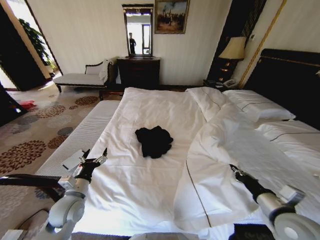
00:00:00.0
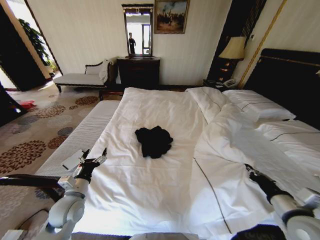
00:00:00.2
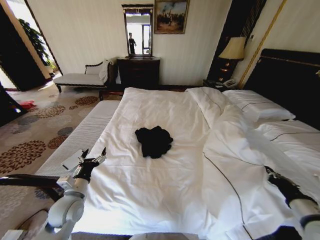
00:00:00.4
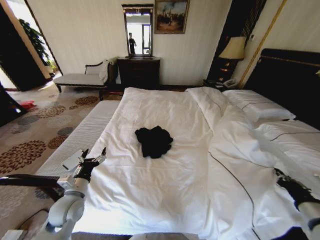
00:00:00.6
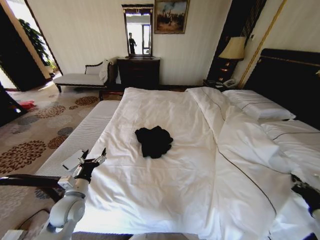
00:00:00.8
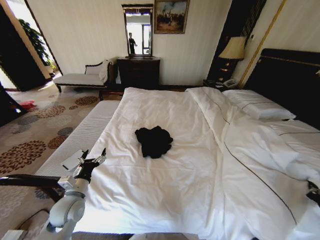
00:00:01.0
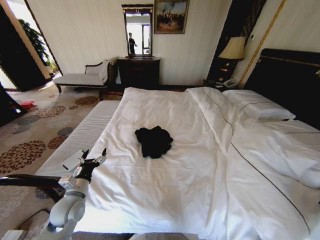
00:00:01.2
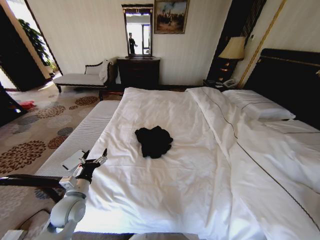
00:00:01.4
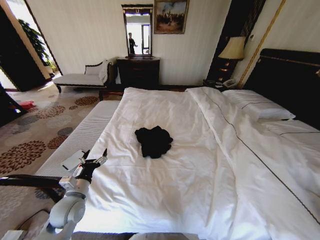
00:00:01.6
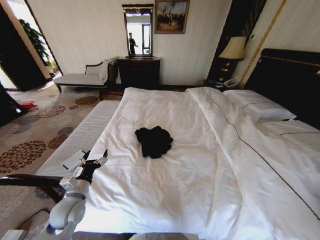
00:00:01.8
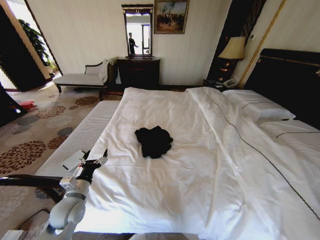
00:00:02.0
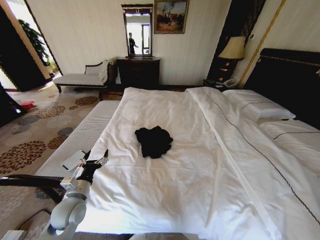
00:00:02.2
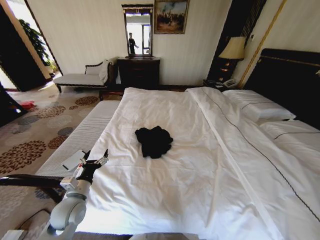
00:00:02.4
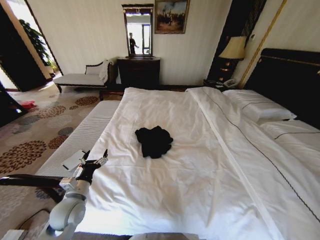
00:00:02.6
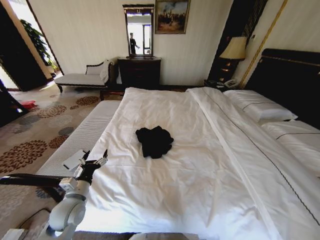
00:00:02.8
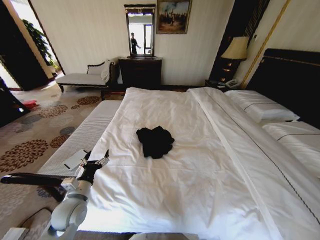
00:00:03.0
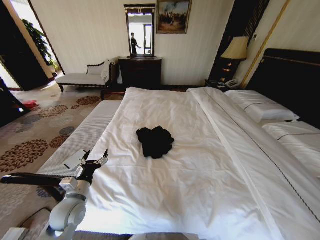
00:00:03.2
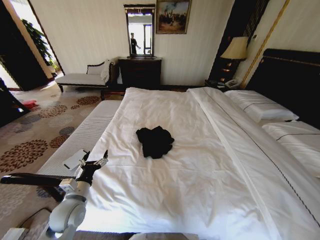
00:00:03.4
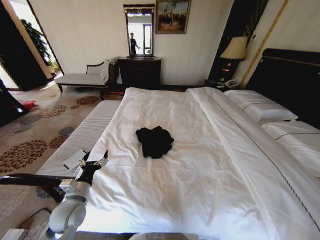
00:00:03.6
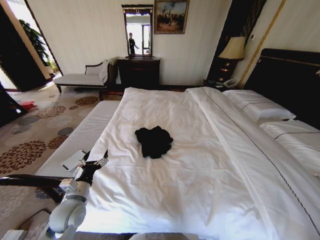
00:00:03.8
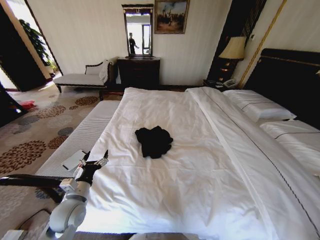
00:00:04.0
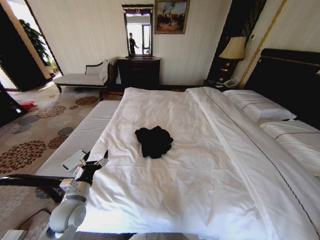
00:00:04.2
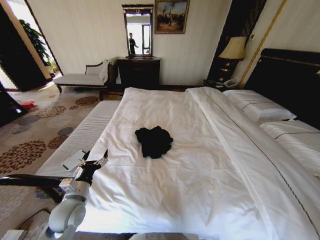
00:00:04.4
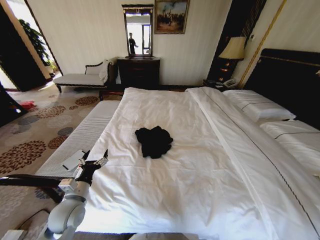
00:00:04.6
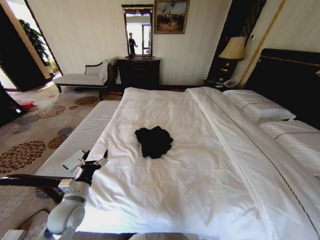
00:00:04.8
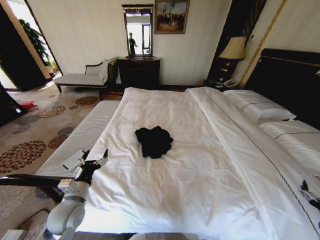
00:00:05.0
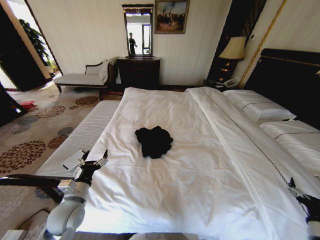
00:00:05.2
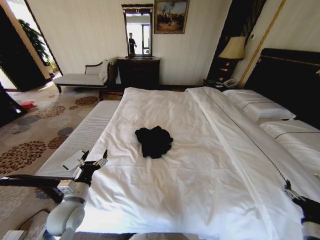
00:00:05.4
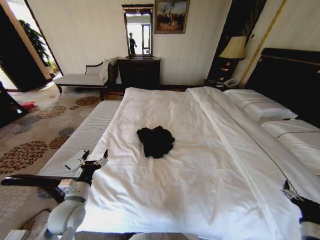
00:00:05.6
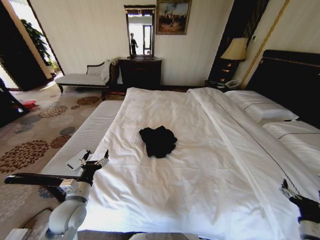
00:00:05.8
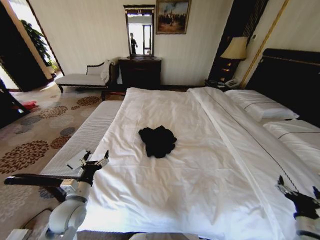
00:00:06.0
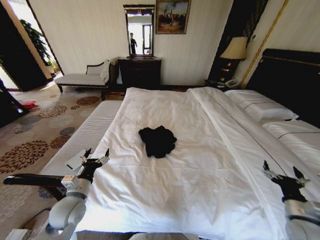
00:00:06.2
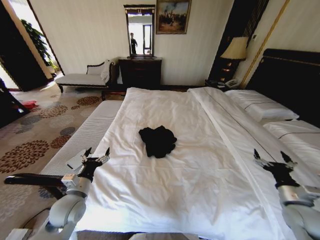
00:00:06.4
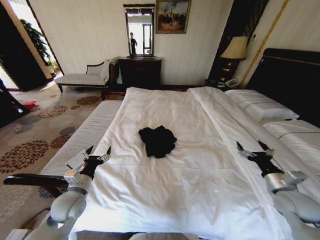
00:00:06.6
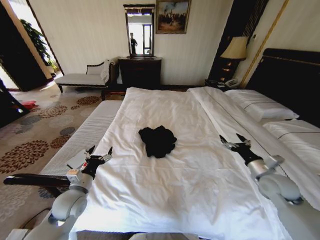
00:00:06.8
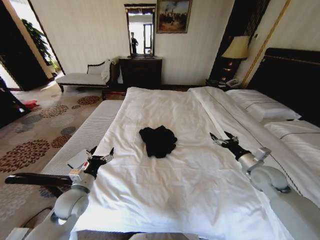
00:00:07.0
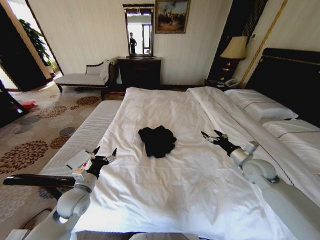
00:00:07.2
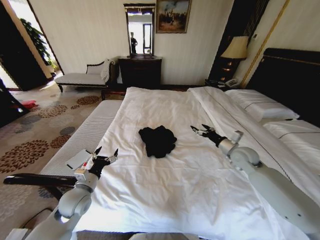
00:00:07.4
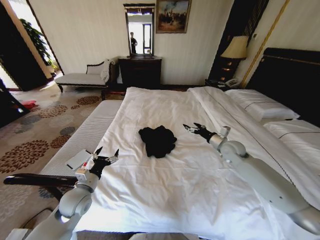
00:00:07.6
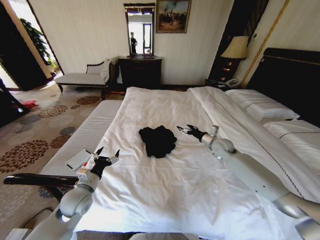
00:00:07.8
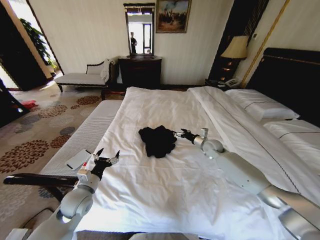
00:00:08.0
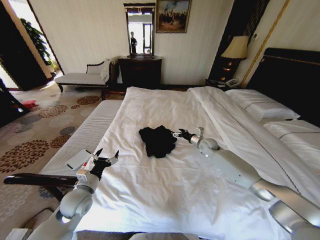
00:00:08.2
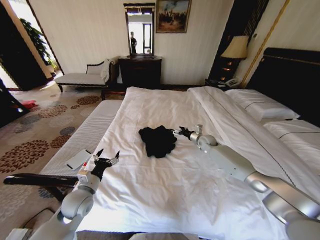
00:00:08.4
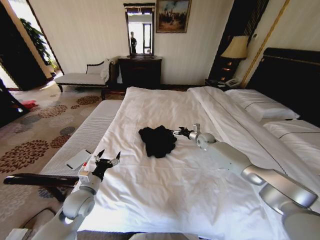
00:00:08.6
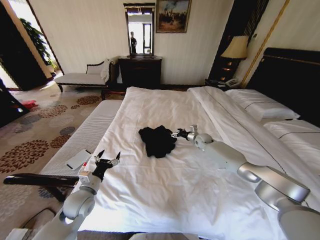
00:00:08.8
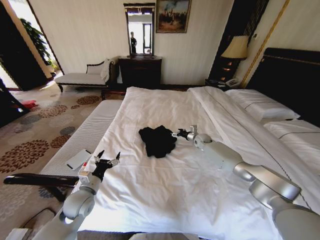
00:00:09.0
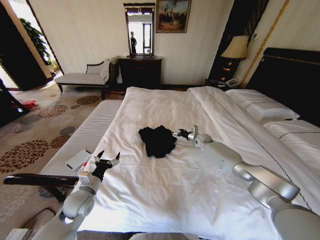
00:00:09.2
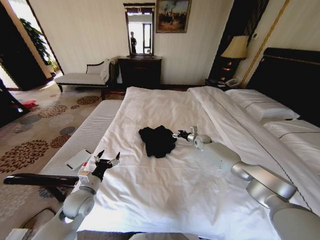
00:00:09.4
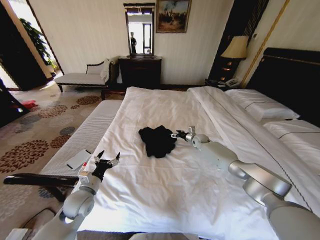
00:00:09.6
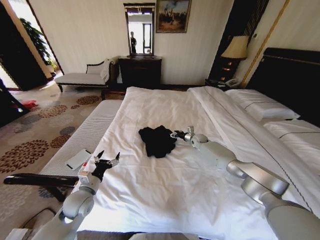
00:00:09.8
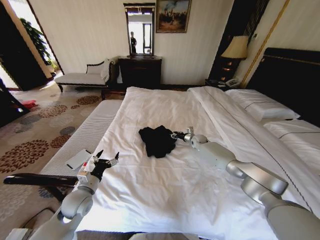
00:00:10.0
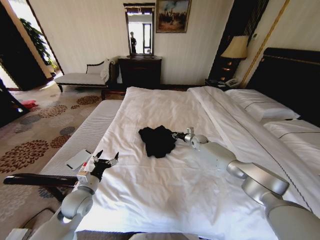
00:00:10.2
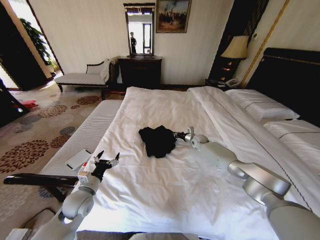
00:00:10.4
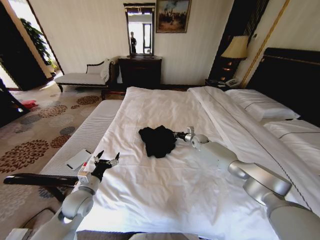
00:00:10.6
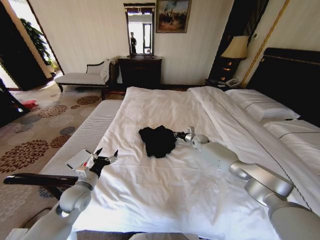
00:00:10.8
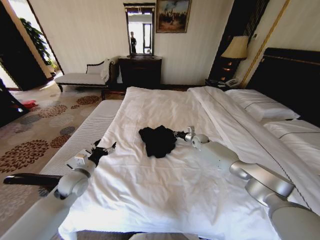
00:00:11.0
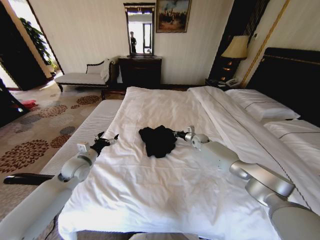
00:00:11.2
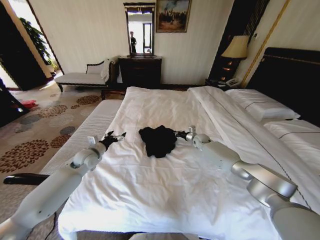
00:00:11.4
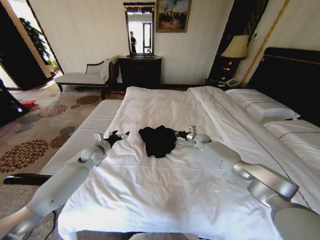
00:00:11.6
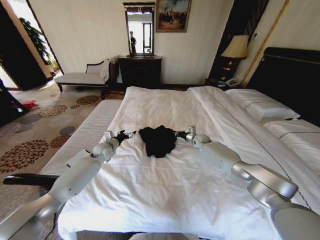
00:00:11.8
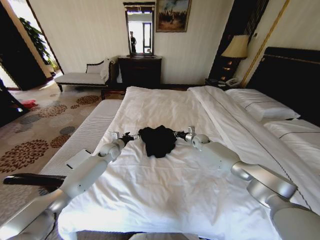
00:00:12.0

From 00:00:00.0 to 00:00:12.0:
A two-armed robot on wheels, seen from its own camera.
Task of the whole recording: Fold the clothes on the bed.
From 00:00:00.0 to 00:00:01.6: The right gripper shifts roughly 20 cm to the right and backward.
From 00:00:01.6 to 00:00:03.0: The right gripper travels downward, backward and to the right by some 20 cm.
From 00:00:03.0 to 00:00:04.4: The right gripper shifts by some 5 cm, and opens its fingers.
From 00:00:04.4 to 00:00:06.0: The right gripper moves to the left, forward and upward, about 20 cm.
From 00:00:06.0 to 00:00:07.6: The right gripper is displaced forward and to the left by about 35 cm.
From 00:00:07.6 to 00:00:09.0: The right gripper is displaced forward and downward by roughly 20 cm.
From 00:00:09.0 to 00:00:10.4: The right gripper closes.
From 00:00:10.4 to 00:00:12.0: The left gripper goes about 25 cm forward.

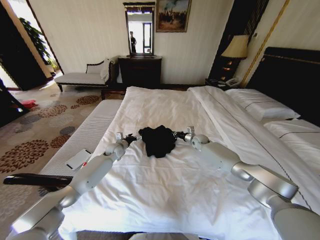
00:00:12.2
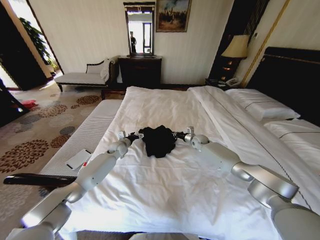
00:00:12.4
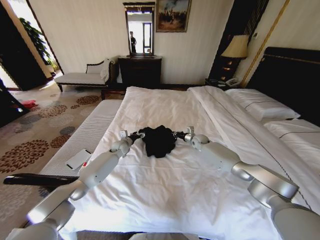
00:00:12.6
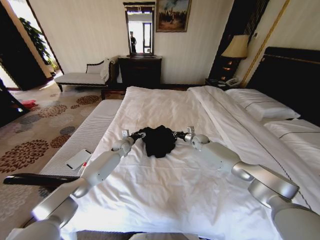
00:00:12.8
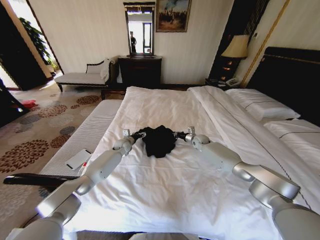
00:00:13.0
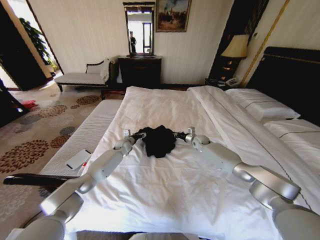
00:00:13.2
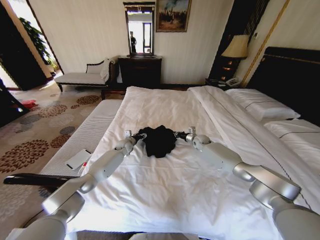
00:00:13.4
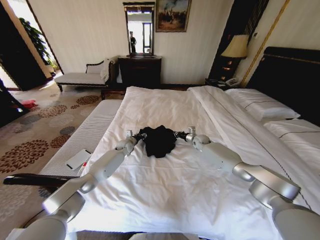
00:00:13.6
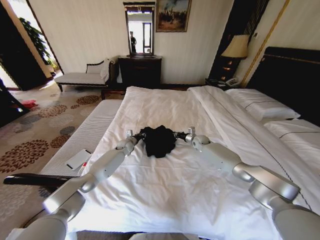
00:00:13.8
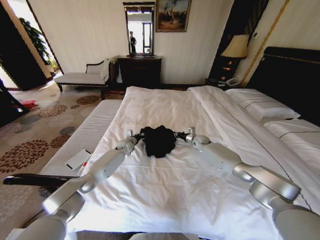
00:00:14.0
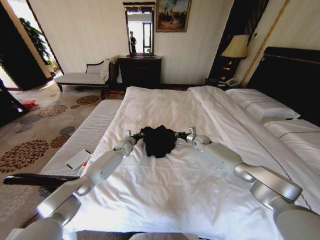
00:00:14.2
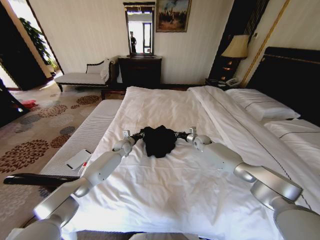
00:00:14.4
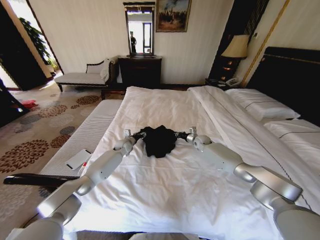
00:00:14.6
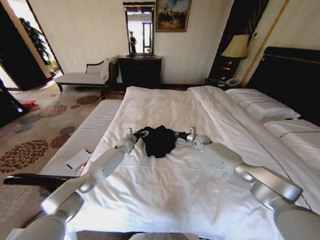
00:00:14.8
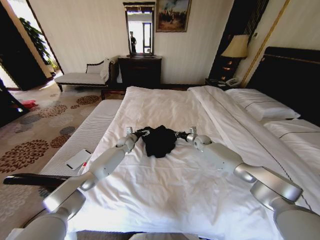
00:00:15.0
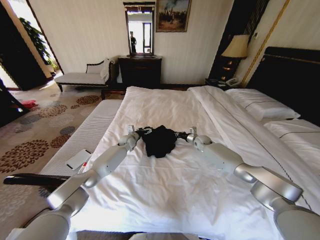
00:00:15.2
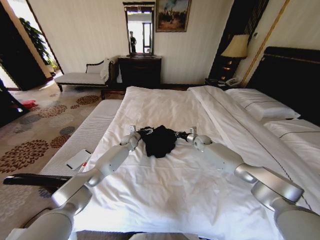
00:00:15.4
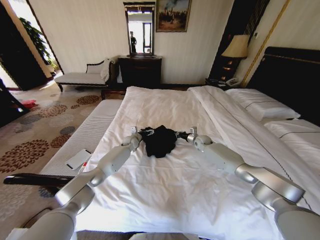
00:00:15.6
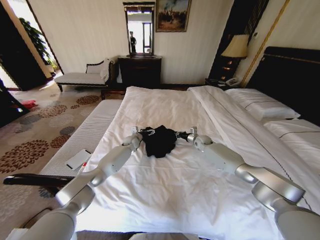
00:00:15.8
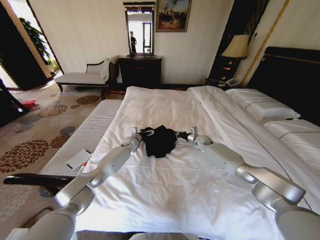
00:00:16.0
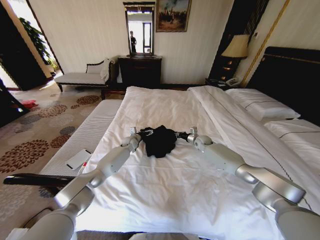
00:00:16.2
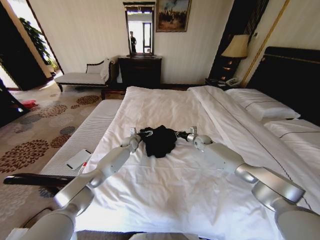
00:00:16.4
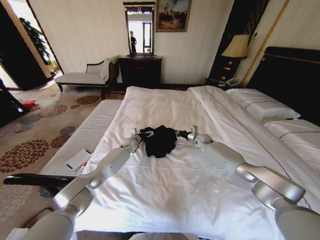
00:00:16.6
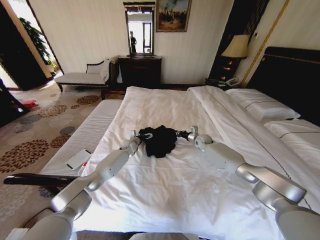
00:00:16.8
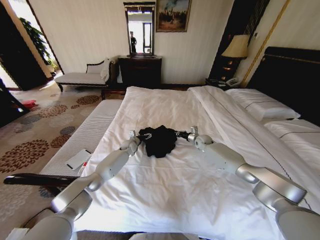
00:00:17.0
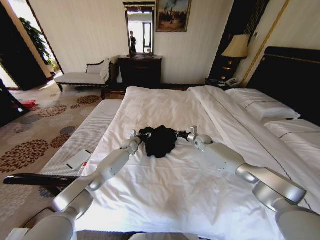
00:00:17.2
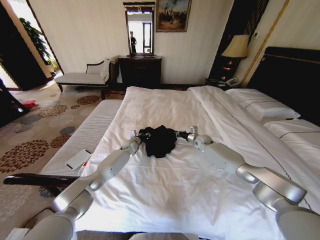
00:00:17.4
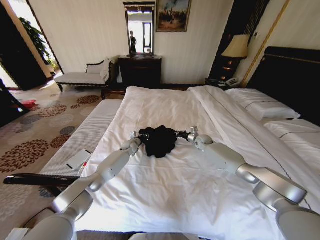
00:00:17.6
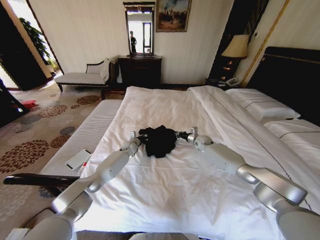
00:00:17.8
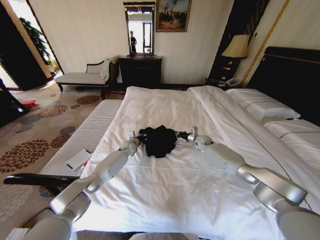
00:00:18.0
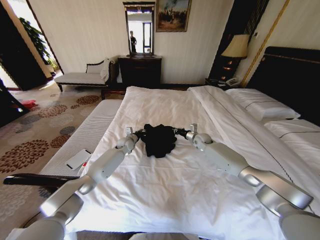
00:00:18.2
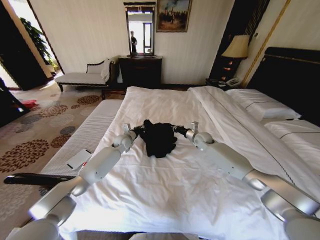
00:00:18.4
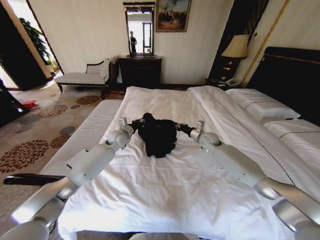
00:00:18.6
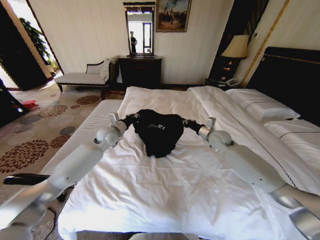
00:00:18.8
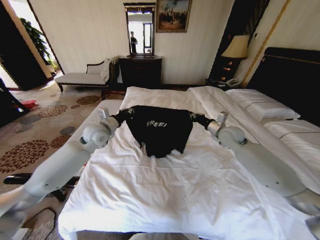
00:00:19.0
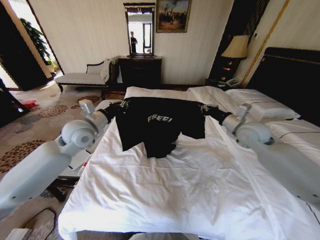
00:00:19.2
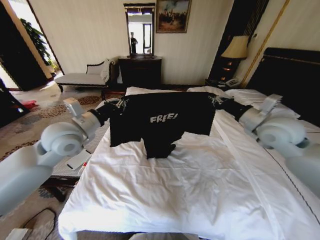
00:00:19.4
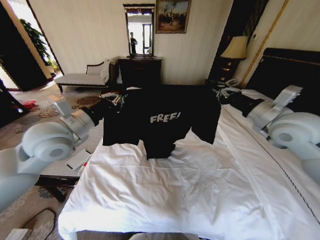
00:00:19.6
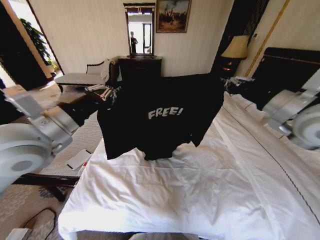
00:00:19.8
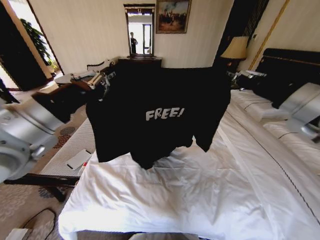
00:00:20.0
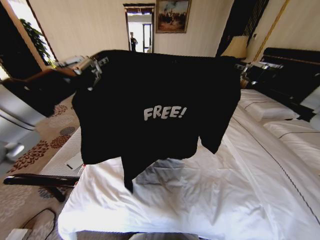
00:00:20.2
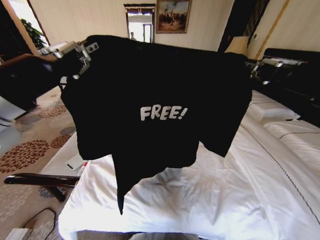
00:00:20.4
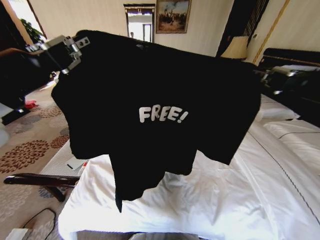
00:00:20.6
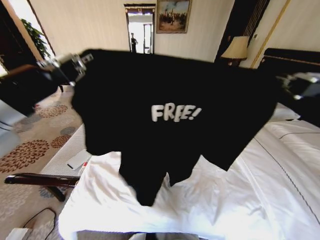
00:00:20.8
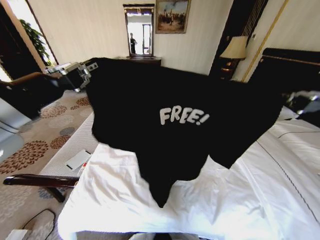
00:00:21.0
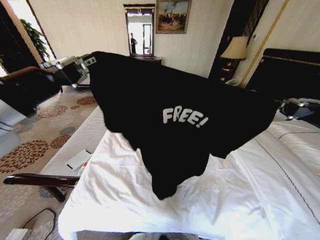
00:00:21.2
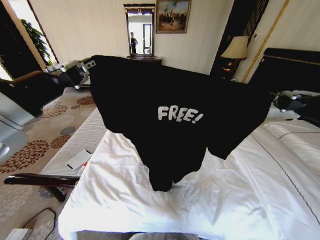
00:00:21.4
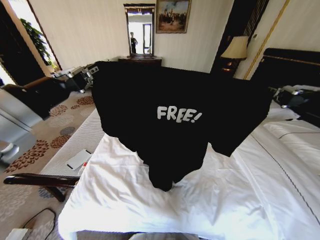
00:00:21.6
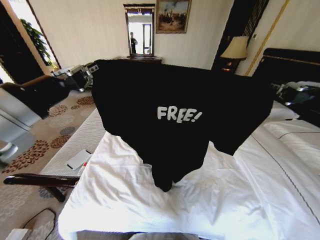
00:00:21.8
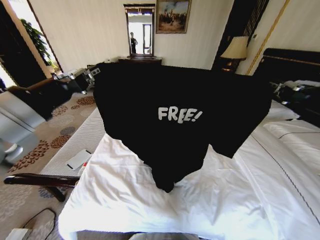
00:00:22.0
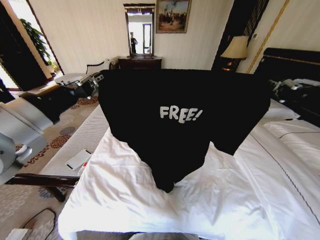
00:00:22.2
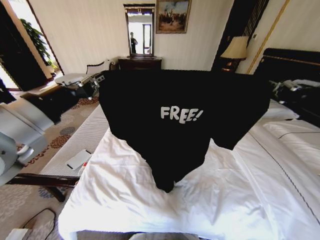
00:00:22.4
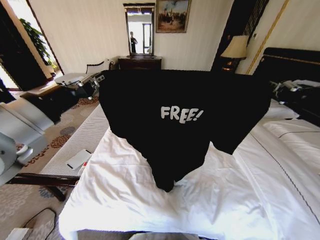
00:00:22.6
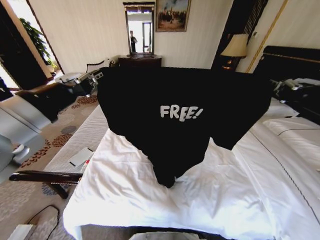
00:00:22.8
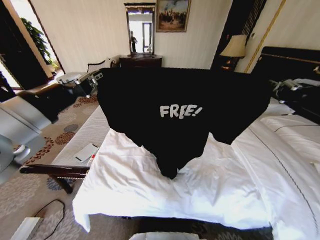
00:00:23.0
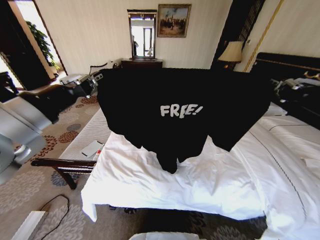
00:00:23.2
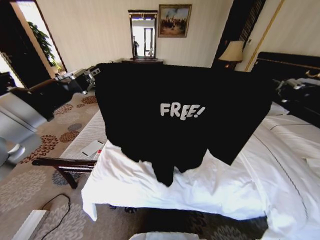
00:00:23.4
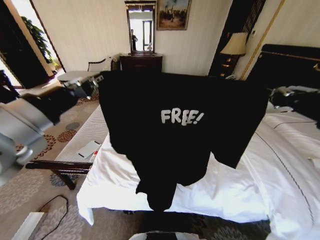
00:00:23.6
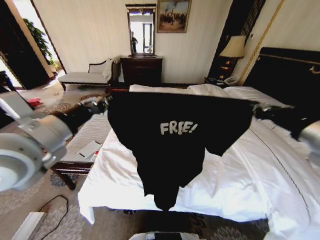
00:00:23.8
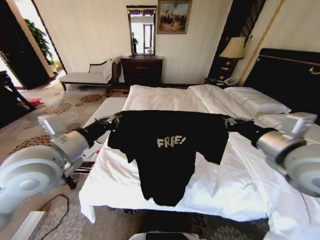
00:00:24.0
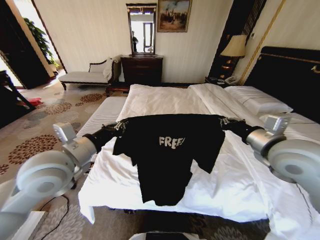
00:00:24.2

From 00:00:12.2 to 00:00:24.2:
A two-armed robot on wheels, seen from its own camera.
Task of the whole recording: Fold the clothes on the bed.
From 00:00:12.2 to 00:00:13.8: The left gripper moves forward, roughly 5 cm, and closes.
From 00:00:13.8 to 00:00:15.2: The left gripper opens its fingers.
From 00:00:15.2 to 00:00:16.6: There are only small adjustments of the grippers.
From 00:00:16.6 to 00:00:18.2: The left gripper closes its fingers.
From 00:00:18.2 to 00:00:19.8: The grippers both shift upward and backward by roughly 40 cm.
From 00:00:19.8 to 00:00:21.2: The left gripper is displaced backward and upward by about 10 cm. The right gripper travels backward by approximately 15 cm.
From 00:00:21.2 to 00:00:22.6: The grippers move only a little.
From 00:00:22.6 to 00:00:24.2: The left gripper travels downward by approximately 10 cm. Meanwhile the right gripper travels downward and forward by roughly 15 cm.
